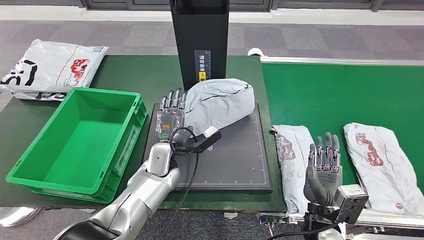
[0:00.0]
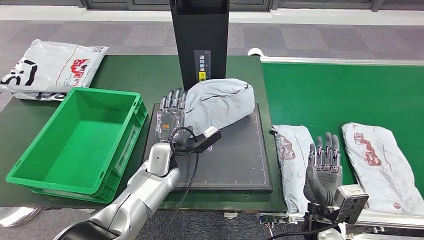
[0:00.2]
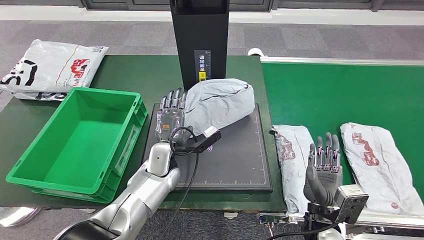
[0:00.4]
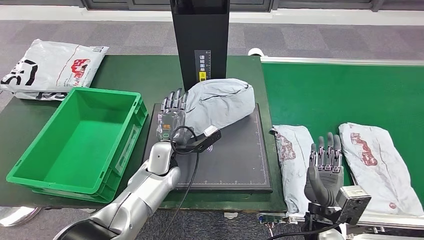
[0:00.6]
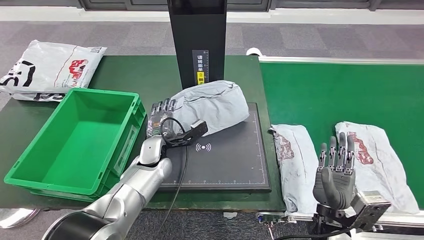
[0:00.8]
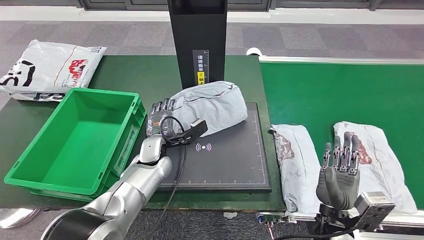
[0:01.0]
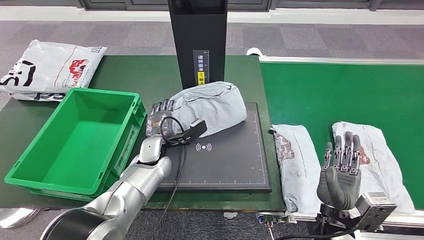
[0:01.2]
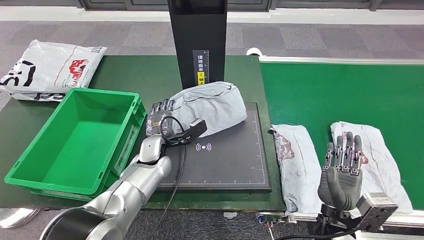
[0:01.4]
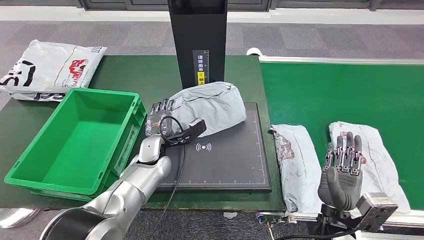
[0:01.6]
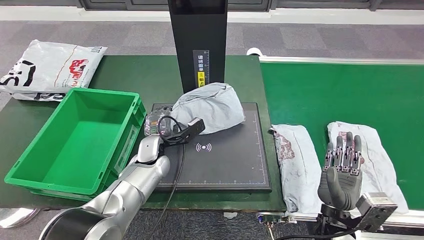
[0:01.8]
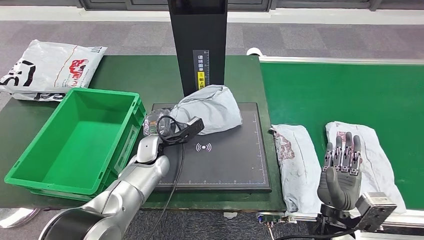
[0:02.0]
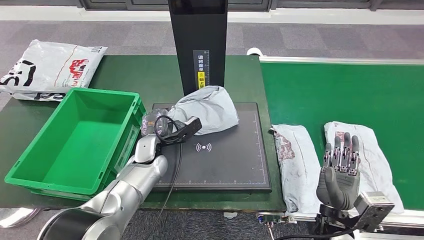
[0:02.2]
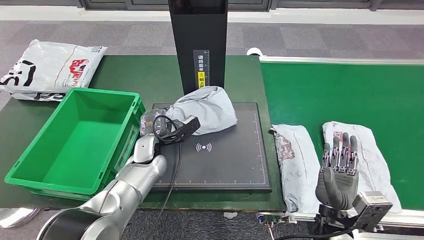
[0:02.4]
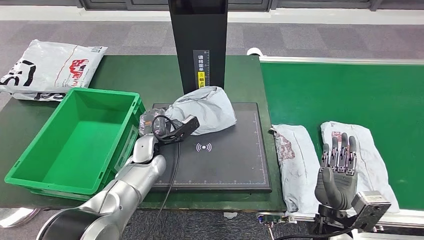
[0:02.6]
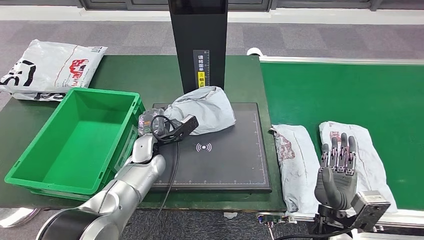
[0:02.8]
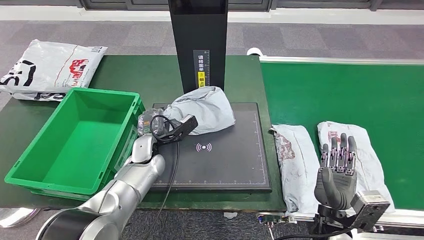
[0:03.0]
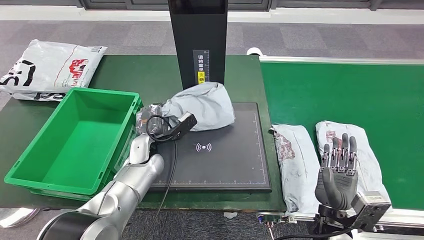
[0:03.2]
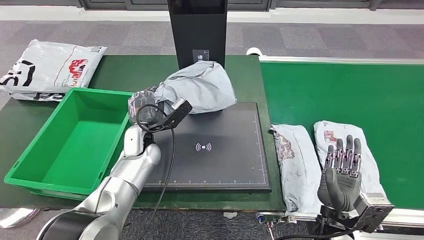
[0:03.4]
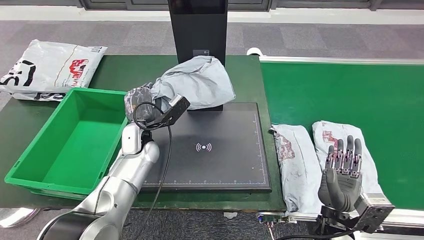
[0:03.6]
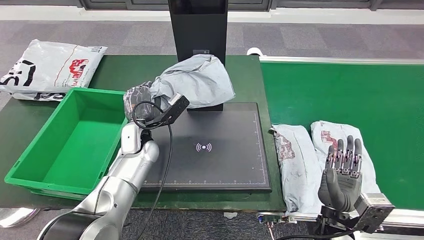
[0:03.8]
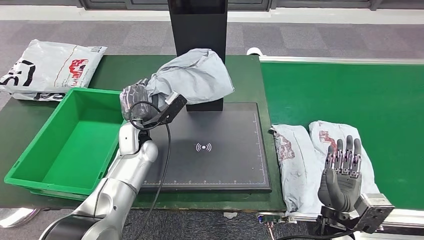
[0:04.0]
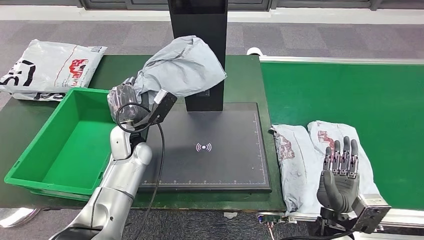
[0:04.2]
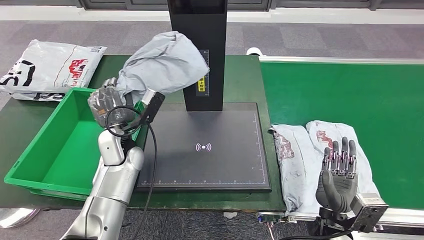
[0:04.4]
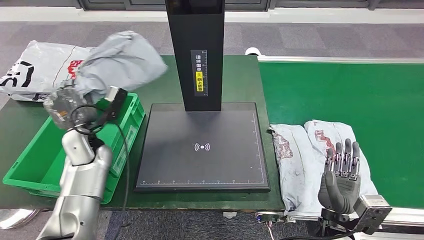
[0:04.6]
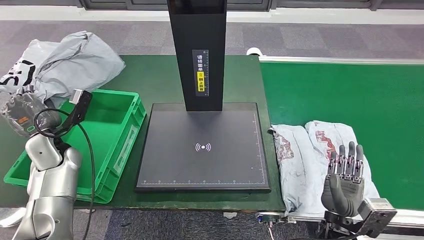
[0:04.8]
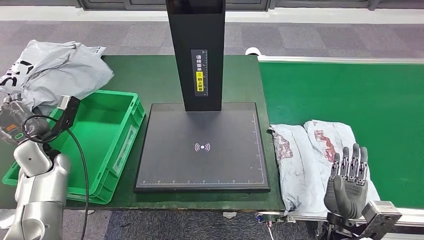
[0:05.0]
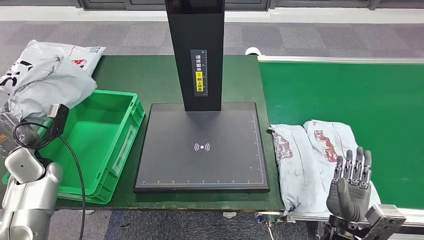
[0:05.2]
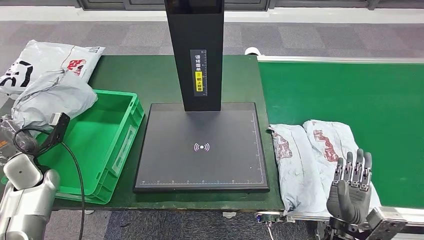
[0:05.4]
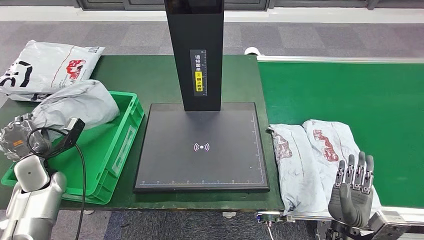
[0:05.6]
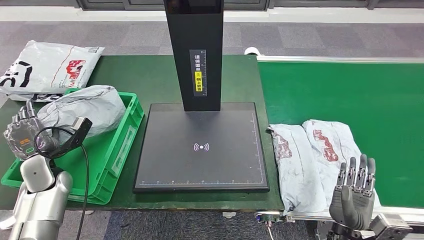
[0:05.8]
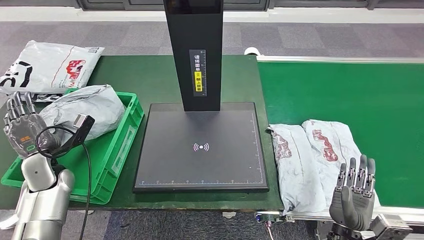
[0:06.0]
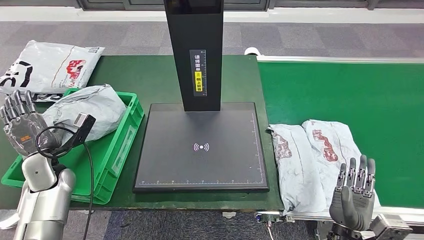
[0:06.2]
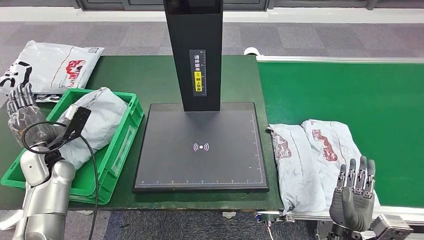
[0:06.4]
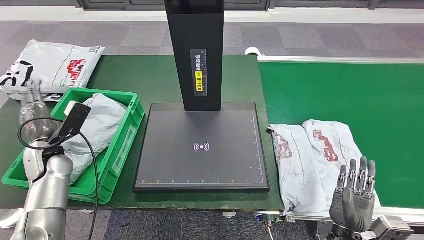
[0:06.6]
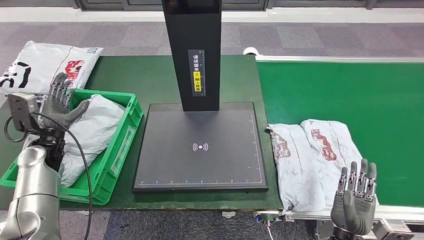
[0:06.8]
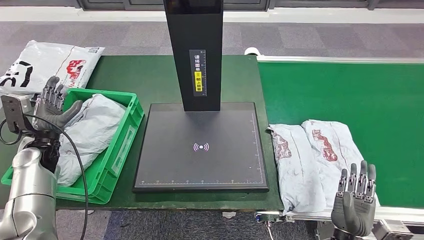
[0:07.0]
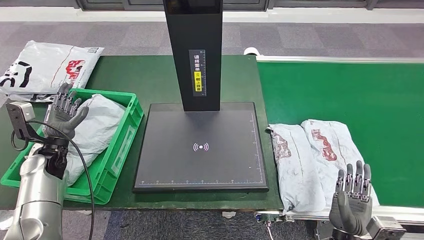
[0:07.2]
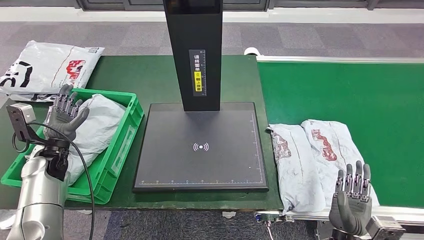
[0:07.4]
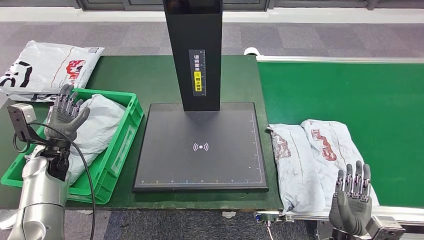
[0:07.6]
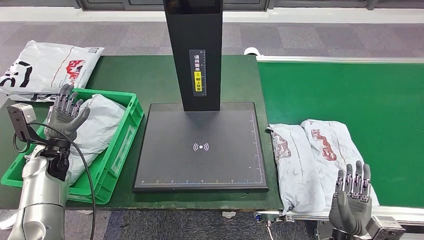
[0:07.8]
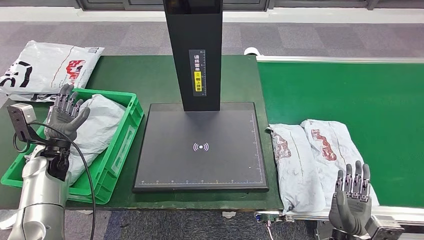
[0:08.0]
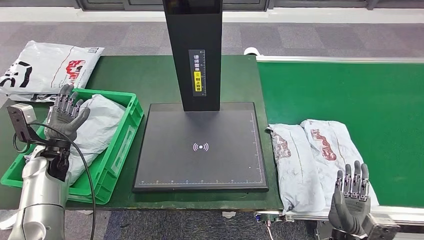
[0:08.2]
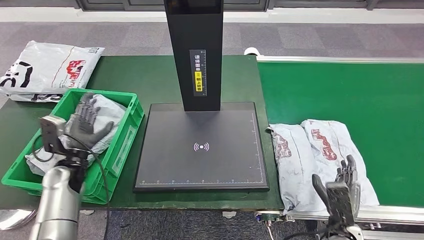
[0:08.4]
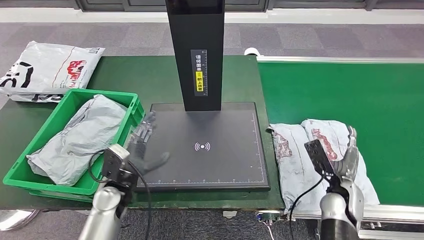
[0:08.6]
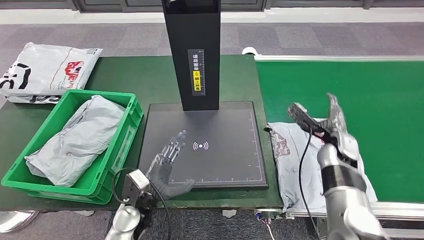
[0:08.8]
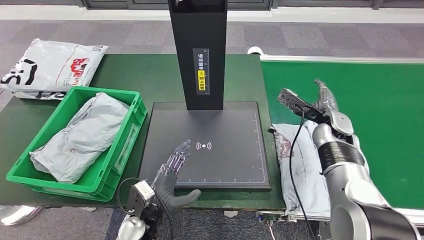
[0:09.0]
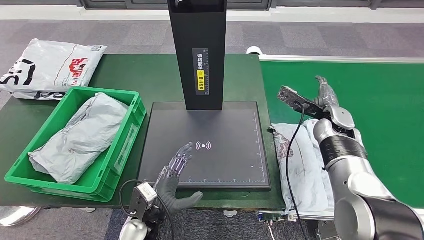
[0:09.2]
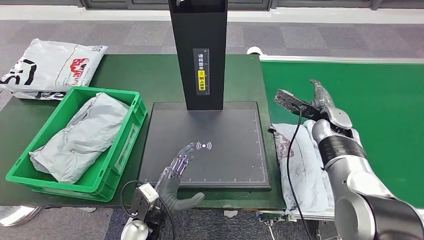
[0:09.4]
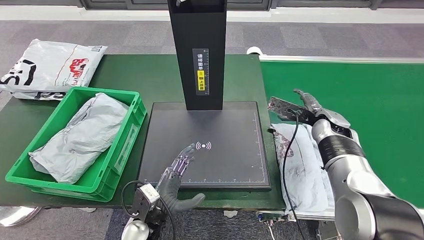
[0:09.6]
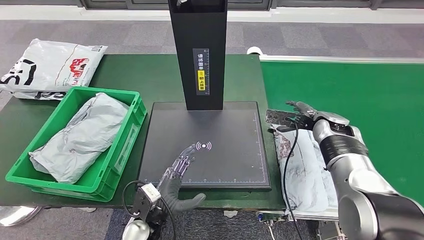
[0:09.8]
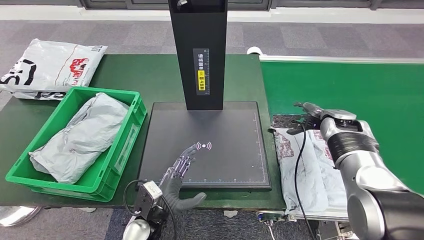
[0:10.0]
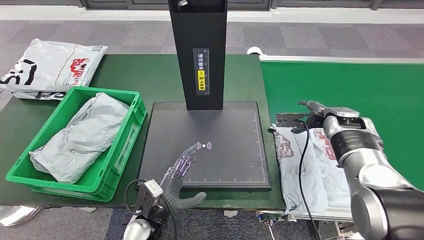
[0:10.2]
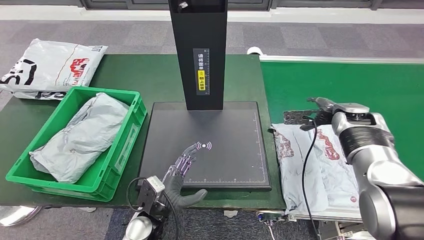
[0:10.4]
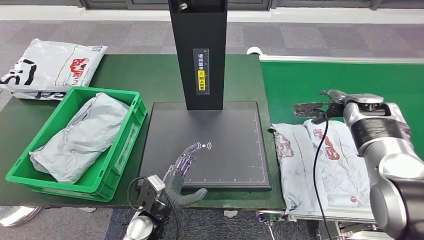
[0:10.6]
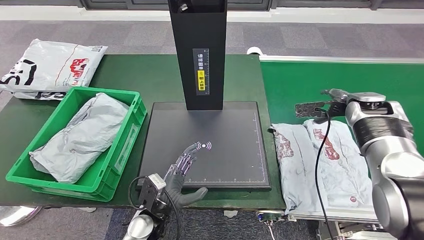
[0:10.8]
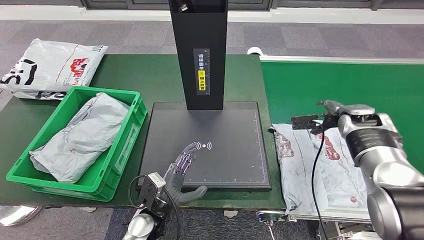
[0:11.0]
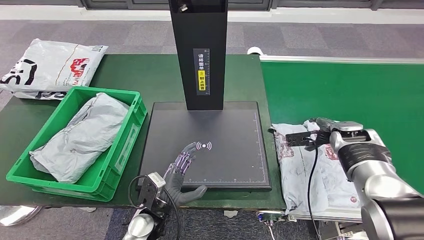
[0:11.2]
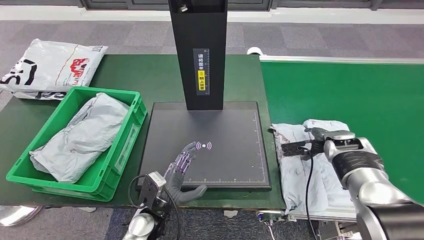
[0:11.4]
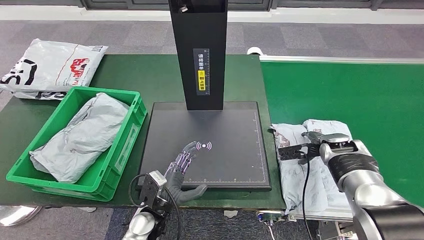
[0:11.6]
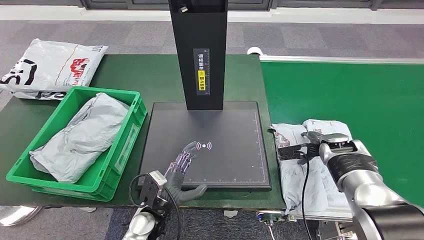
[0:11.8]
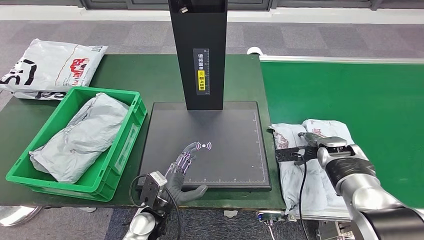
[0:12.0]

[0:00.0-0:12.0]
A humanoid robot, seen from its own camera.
Step, 0:00.0 to 0:04.6: Pick up the parcel from the inbound machine.
Step, 0:04.8 to 0:06.8: Put the parcel inside the courier box.
0:01.6 to 0:03.0: The hands move only a little.
0:09.0 to 0:10.4: The right hand moves to the right, some 5 cm.
0:10.4 to 0:12.0: The right hand heads downward and backward, covering approximately 10 cm.

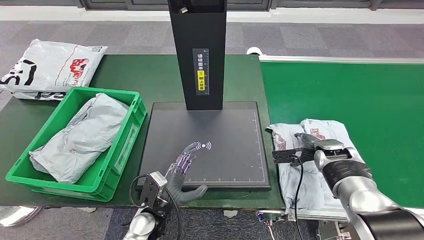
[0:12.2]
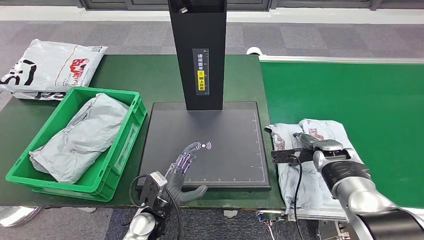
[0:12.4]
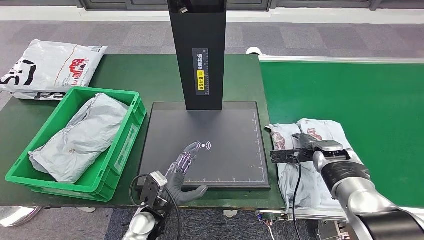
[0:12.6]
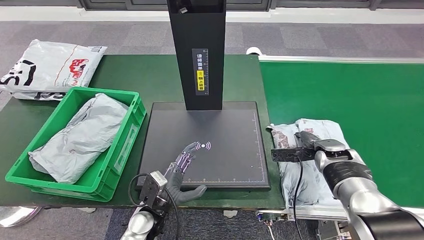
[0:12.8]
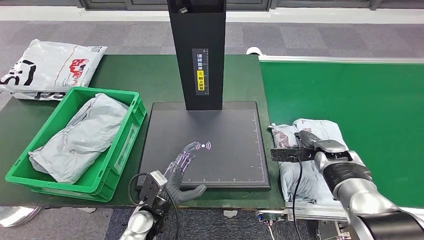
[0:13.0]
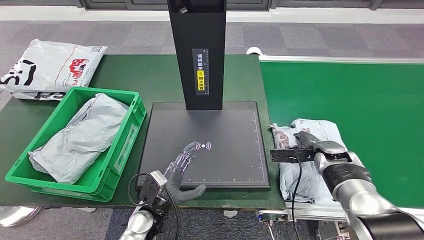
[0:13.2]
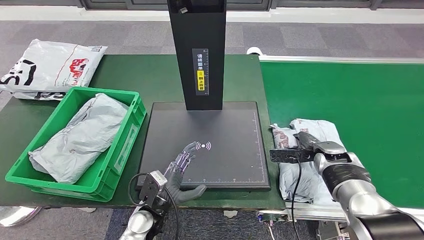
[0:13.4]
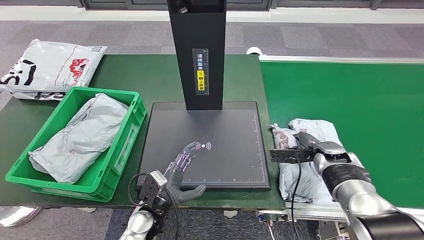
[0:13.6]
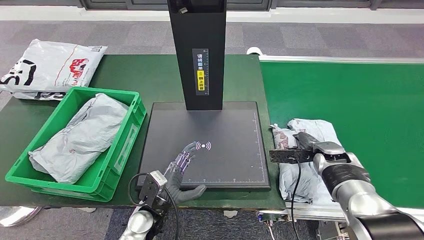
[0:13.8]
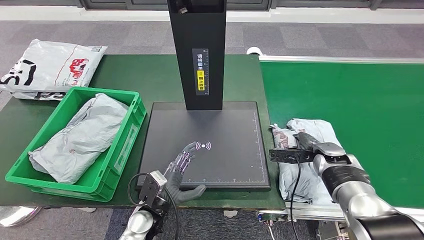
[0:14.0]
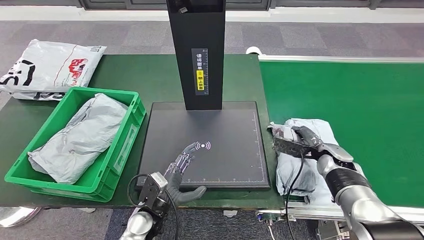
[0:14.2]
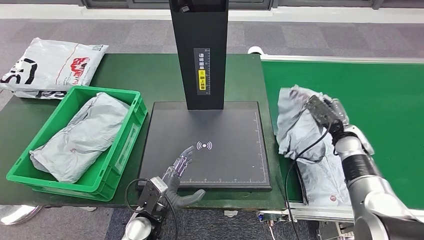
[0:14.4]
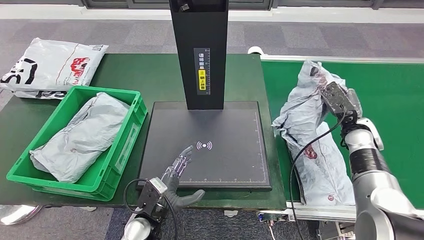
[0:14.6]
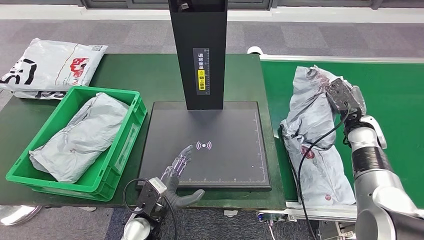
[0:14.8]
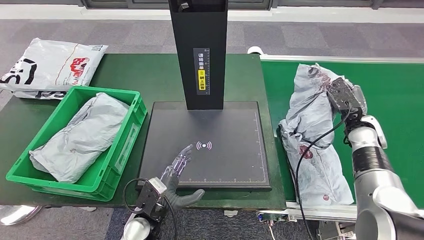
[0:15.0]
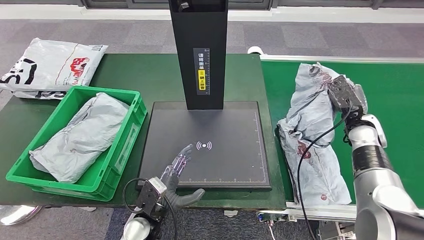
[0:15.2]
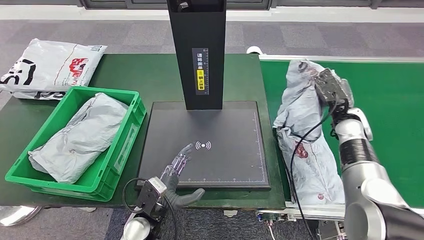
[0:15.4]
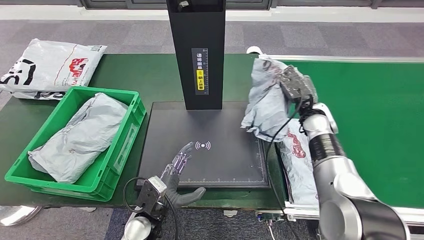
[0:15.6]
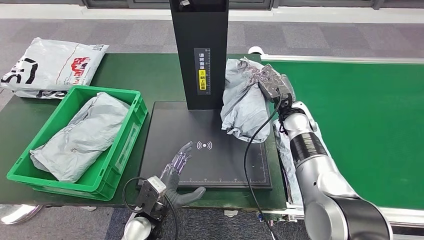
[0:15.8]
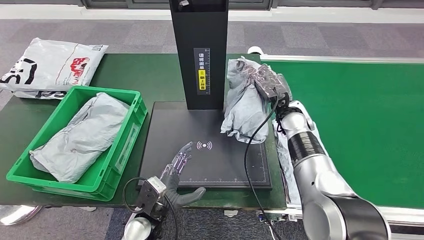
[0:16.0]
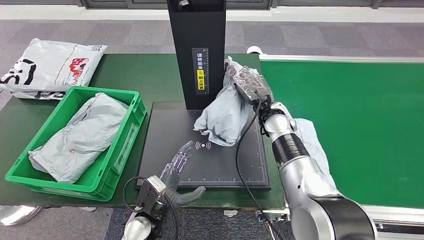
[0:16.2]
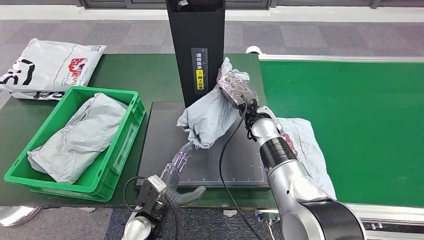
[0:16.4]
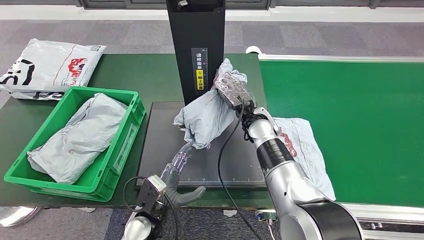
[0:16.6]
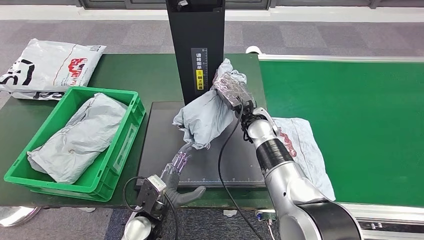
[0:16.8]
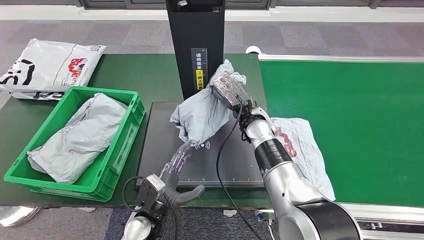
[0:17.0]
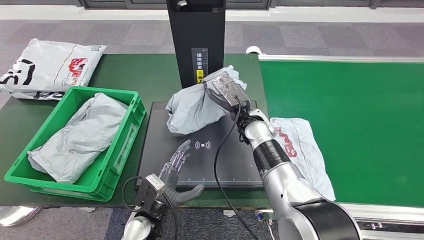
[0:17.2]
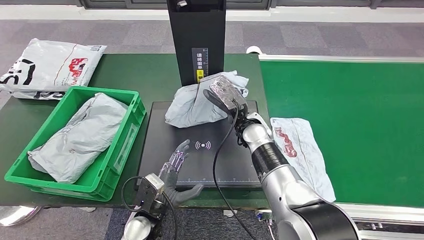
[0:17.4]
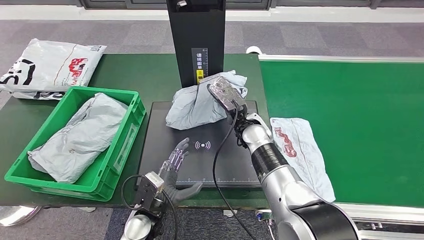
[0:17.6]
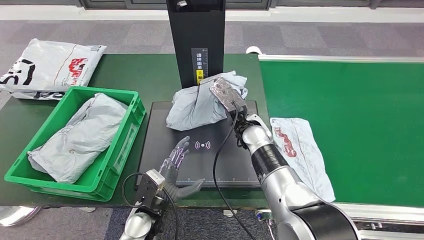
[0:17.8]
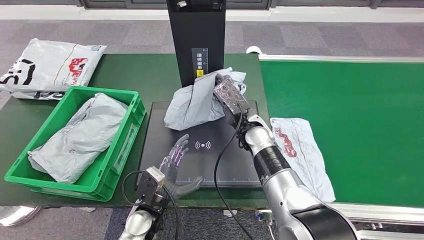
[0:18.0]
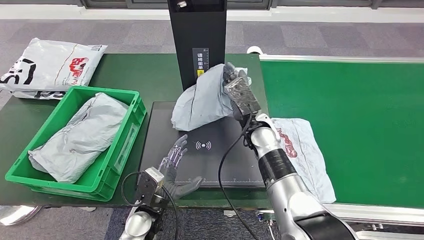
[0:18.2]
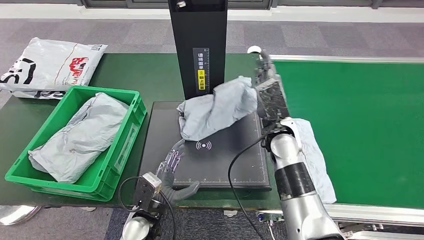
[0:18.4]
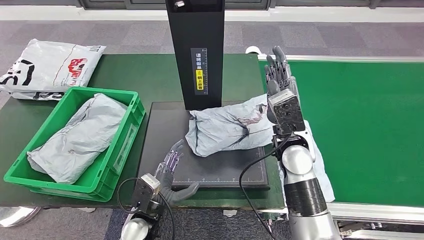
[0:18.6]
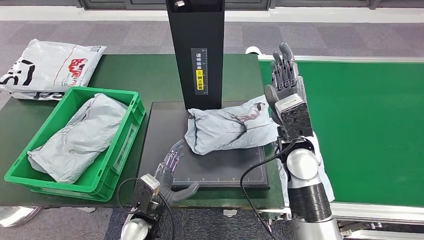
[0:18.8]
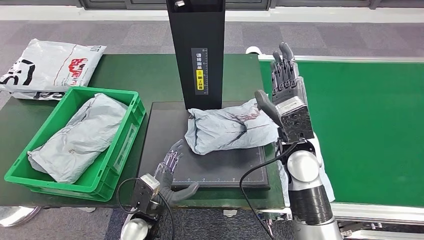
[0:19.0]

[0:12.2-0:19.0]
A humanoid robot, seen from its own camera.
Step, 0:12.2 to 0:14.4: Pick up the parcel from the conveyor belt.
0:12.2 to 0:13.6: The hands stay close to where they were, moving slightly.
0:13.6 to 0:15.0: The right hand heads upward, covering approximately 10 cm.
0:16.2 to 0:17.6: The right hand heads to the left, covering some 5 cm.
0:17.6 to 0:19.0: The right hand heads to the right, backward and upward, covering roughly 10 cm.
